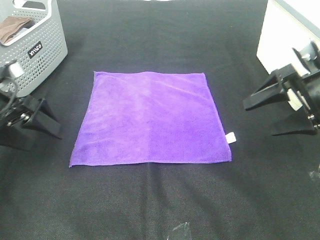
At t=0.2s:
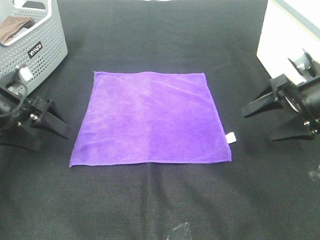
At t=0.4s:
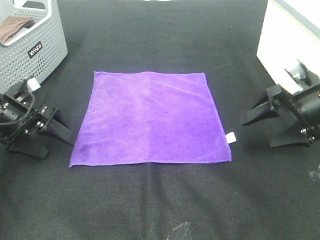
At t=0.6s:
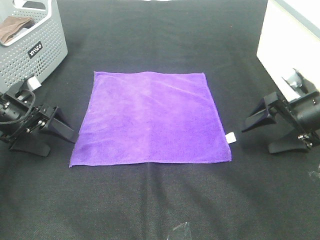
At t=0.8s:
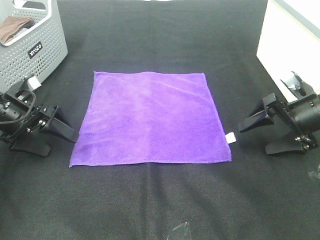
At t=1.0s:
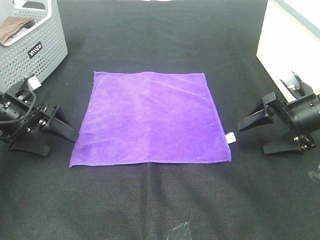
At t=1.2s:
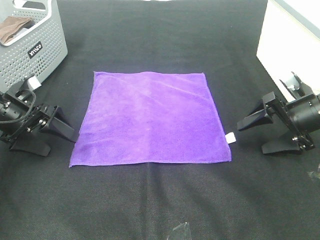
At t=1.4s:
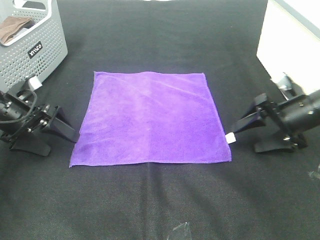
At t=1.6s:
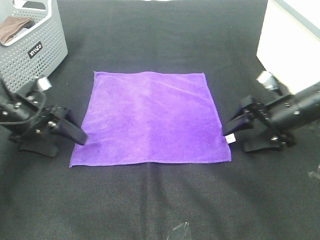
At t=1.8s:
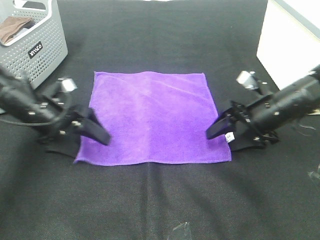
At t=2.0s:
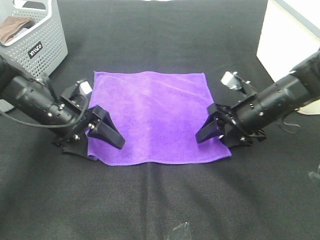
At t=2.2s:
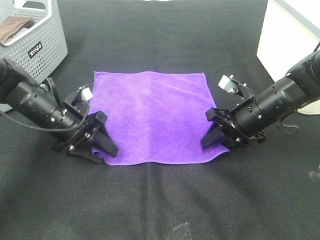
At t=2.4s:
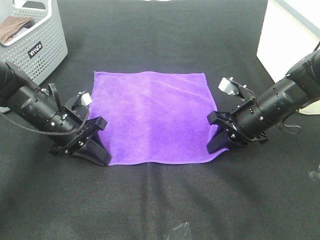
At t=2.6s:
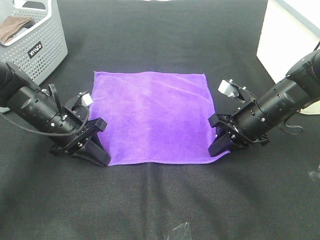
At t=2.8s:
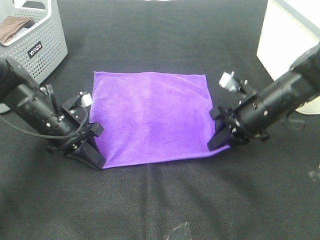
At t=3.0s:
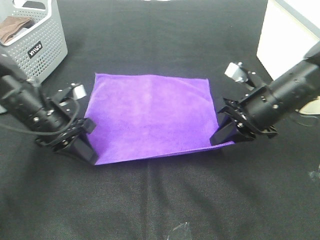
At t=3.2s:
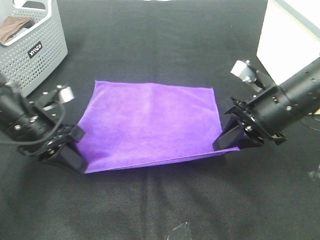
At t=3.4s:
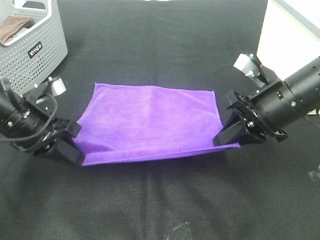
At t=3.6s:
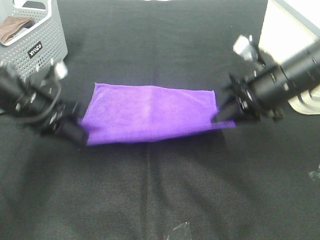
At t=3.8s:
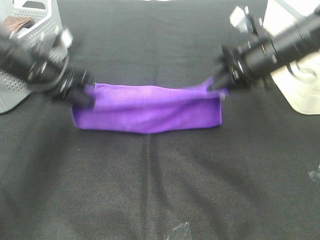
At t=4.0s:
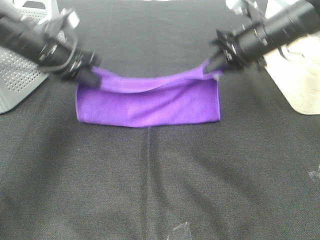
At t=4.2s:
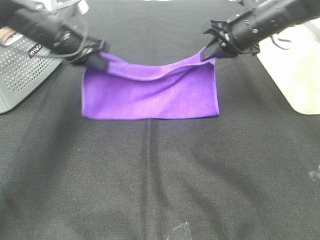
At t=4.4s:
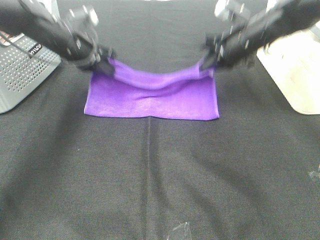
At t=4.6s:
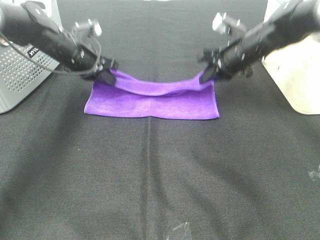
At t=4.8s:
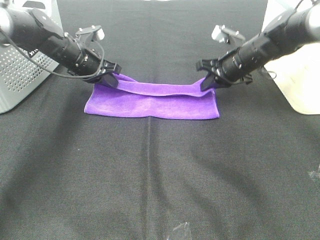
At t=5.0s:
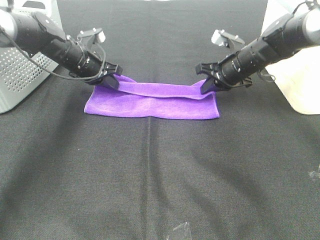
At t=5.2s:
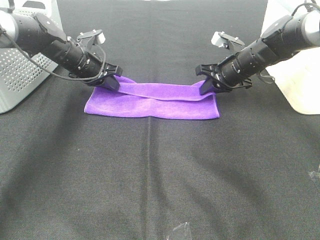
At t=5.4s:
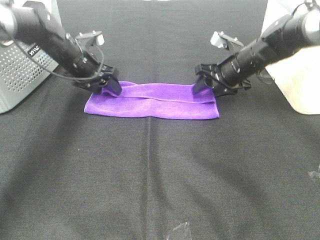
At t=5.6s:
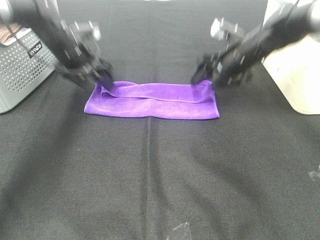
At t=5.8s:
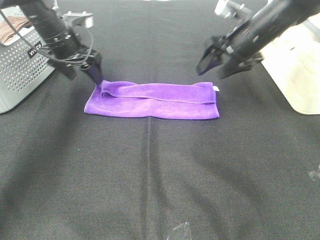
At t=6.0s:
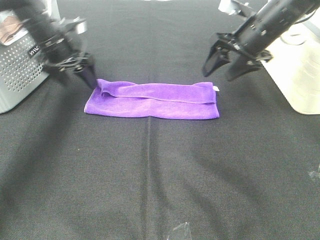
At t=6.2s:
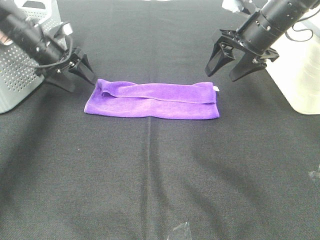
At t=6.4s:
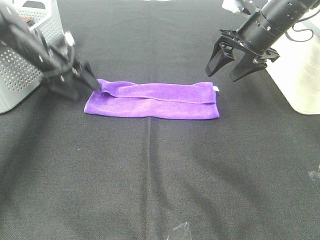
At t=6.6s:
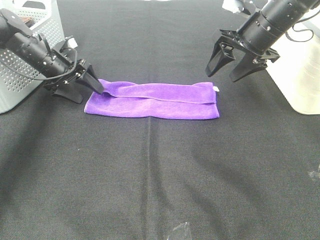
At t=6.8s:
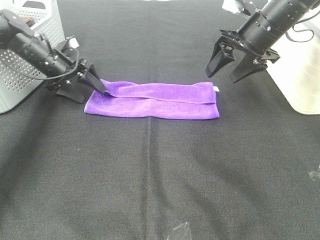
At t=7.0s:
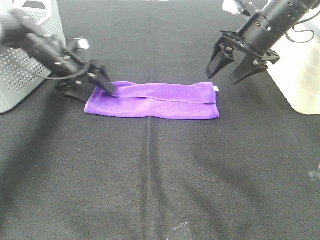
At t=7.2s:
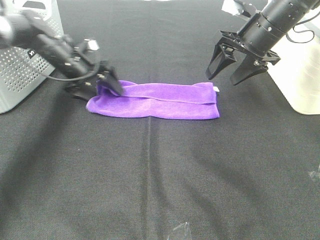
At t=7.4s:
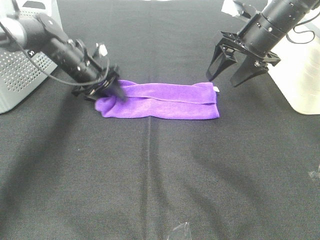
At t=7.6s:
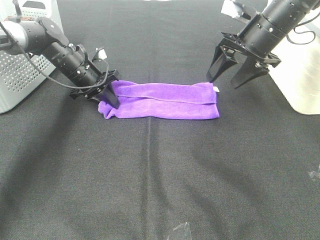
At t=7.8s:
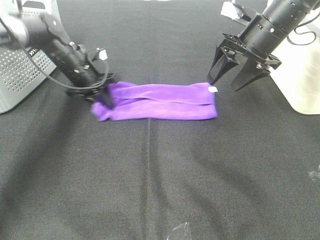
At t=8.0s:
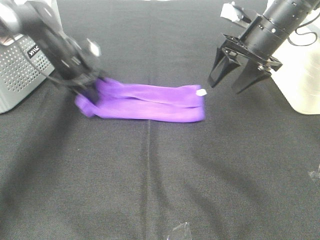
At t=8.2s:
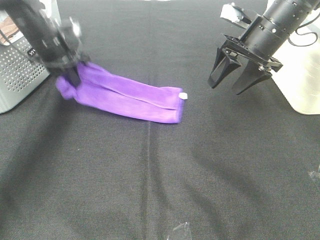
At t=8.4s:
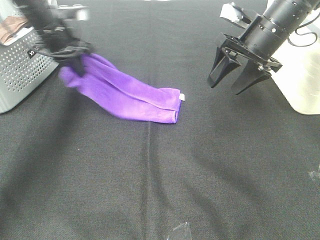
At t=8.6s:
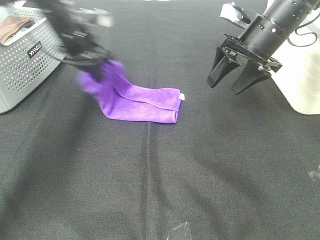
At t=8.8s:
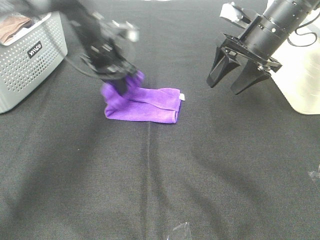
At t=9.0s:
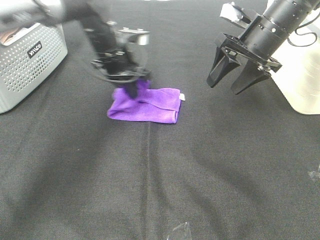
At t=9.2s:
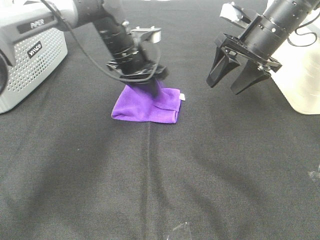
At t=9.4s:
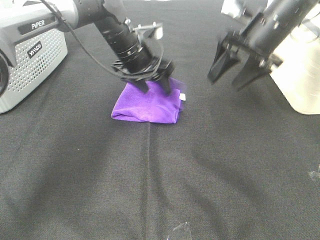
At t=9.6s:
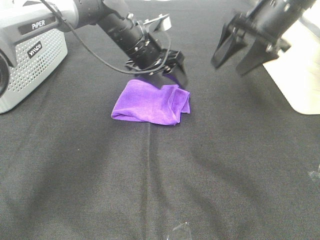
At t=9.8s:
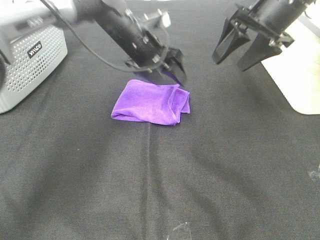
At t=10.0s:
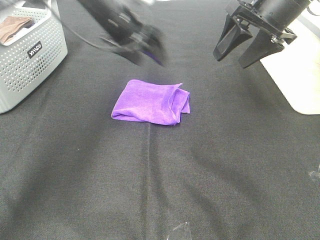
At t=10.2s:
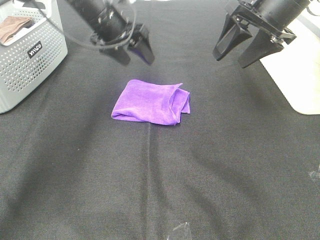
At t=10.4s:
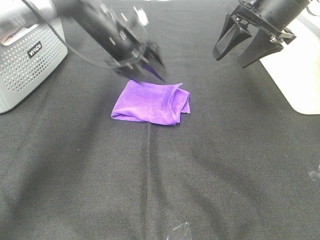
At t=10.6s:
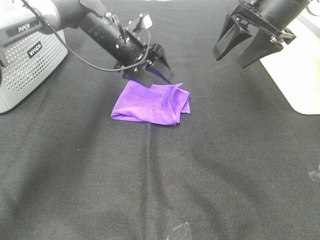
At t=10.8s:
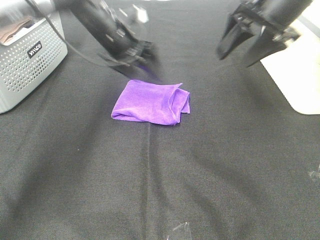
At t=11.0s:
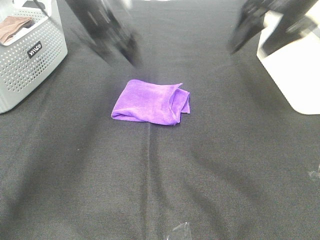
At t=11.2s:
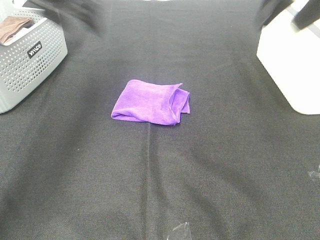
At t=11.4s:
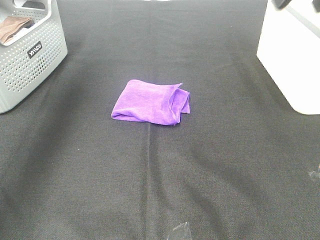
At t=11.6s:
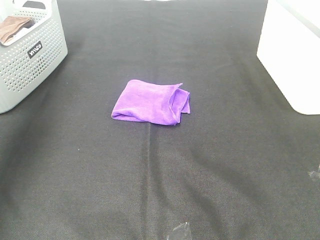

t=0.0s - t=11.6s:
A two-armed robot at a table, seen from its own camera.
Task of the whole recording: Fold towels.
Step, t=0.0s - t=2.4s: Left hand: grab the bottom left corner of purple towel.
Step, t=0.0s - t=2.4s: Right hand: grab the bottom right corner of purple towel.
Step, t=2.6s - t=5.0s: Left hand: fold the purple towel up.
Step, t=2.6s - t=5.0s: Right hand: fold the purple towel up.
Step, t=5.2s - t=9.0s: Left hand: fold the purple towel from left to right.
t=0.0s - t=1.4s: The left gripper ends up approximately 5 cm from where it was, while the right gripper moves downward, roughly 5 cm.
t=1.4s - t=2.8s: The right gripper is displaced to the left by about 10 cm, and closes its fingers; the left gripper travels to the right by some 10 cm, and closes up.
t=2.8s - t=4.4s: The left gripper travels forward and upward by roughly 15 cm. The right gripper heads forward, covering roughly 15 cm.
t=4.4s - t=5.8s: The right gripper opens up; the left gripper opens.
t=5.8s - t=7.2s: The left gripper heads downward, covering about 10 cm.
t=7.2s - t=8.8s: The left gripper shifts roughly 10 cm to the right and upward, and closes its fingers.
t=8.8s - t=10.2s: The left gripper opens; the right gripper heads upward, covering approximately 5 cm.
t=10.2s - t=11.6s: The right gripper moves upward and backward, roughly 15 cm. Meanwhile the left gripper heads to the left, backward and upward, covering roughly 35 cm.

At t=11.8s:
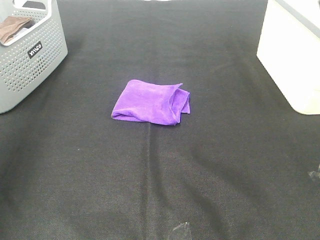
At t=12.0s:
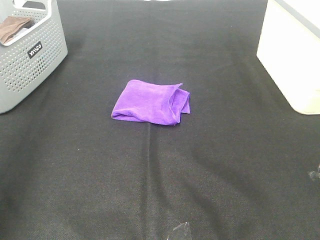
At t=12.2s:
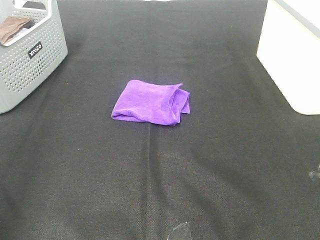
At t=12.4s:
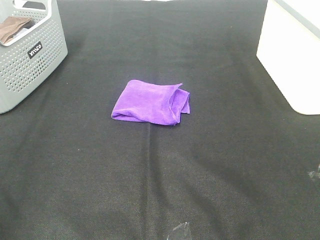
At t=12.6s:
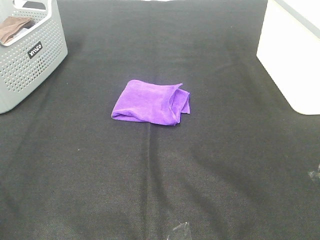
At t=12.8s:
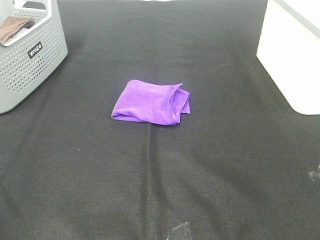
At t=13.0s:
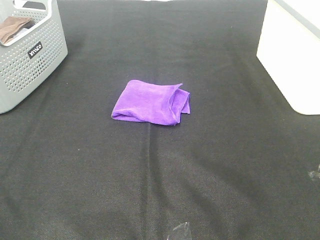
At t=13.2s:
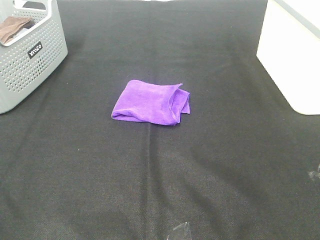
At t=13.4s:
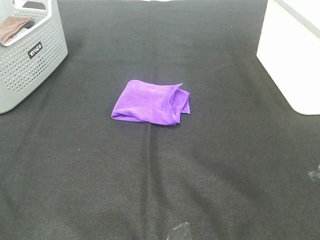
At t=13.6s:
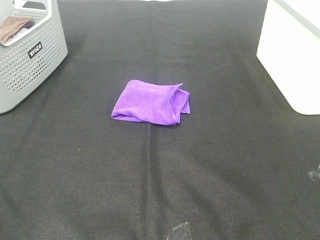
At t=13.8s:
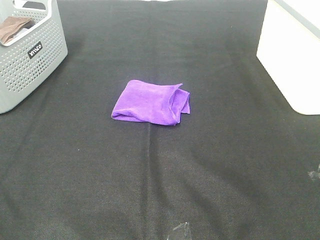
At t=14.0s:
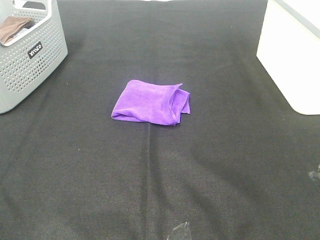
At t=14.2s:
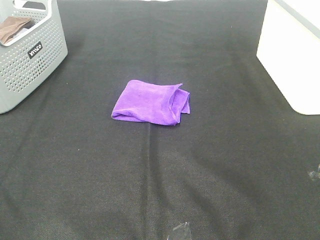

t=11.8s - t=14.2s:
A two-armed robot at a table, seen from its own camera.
Task of the whole recording: Fold towels.
t=11.8s - t=13.0s: The left gripper moves backward and downward, roughly 25 cm.

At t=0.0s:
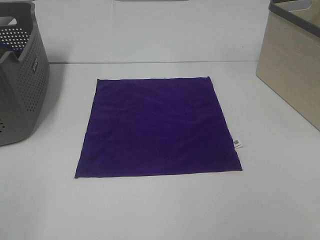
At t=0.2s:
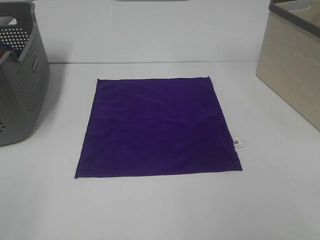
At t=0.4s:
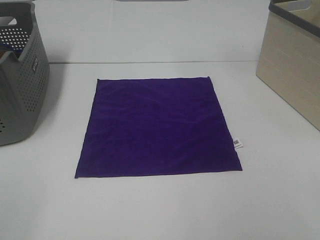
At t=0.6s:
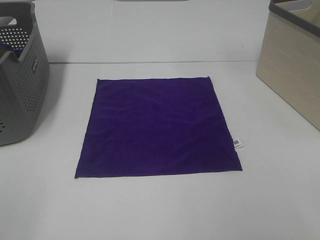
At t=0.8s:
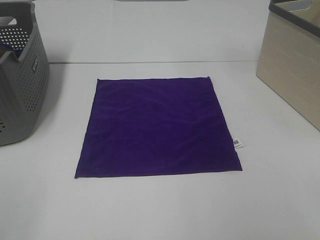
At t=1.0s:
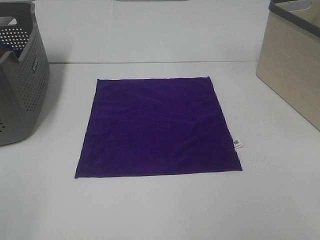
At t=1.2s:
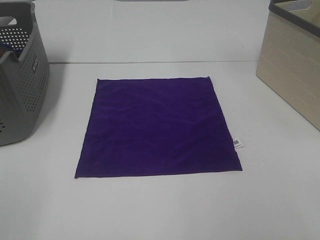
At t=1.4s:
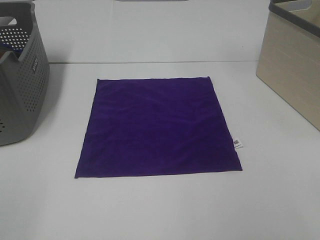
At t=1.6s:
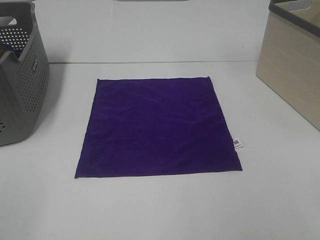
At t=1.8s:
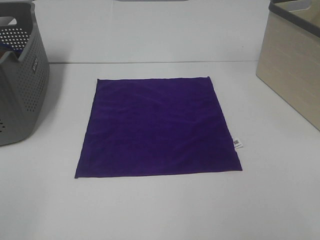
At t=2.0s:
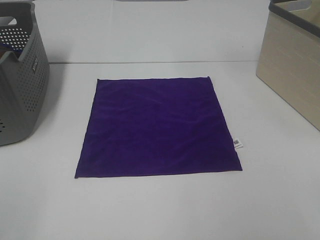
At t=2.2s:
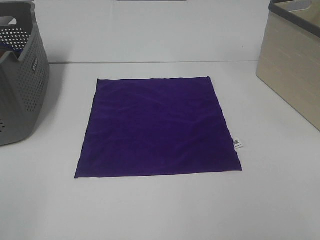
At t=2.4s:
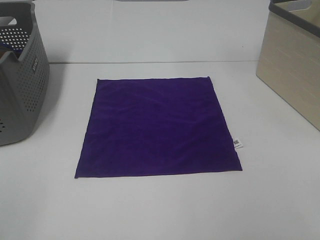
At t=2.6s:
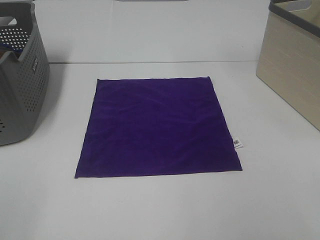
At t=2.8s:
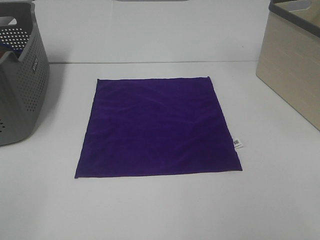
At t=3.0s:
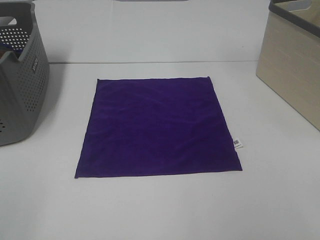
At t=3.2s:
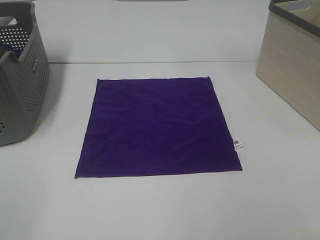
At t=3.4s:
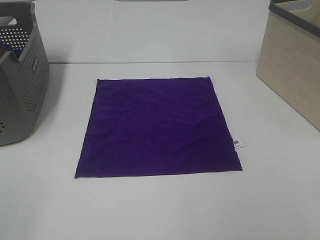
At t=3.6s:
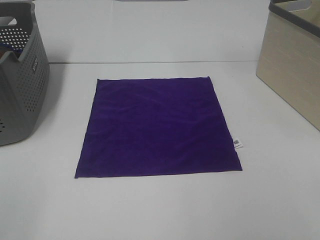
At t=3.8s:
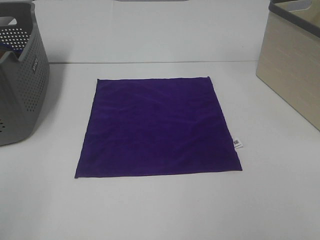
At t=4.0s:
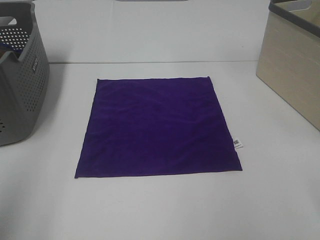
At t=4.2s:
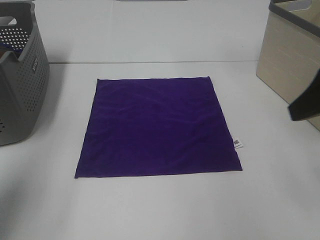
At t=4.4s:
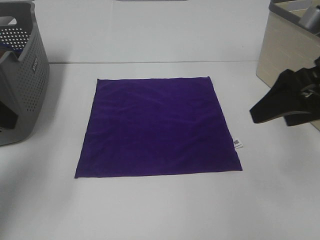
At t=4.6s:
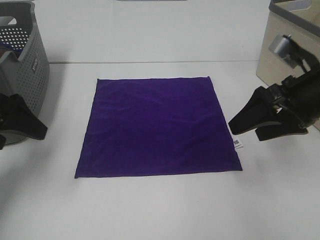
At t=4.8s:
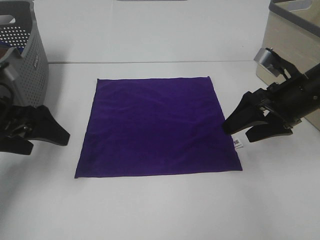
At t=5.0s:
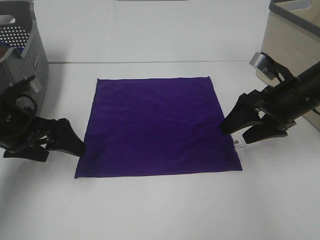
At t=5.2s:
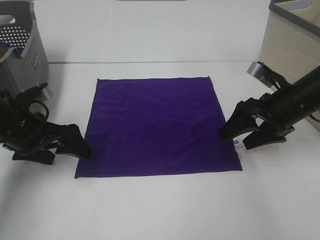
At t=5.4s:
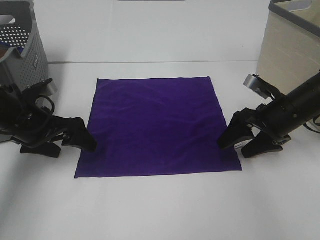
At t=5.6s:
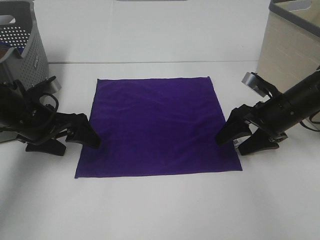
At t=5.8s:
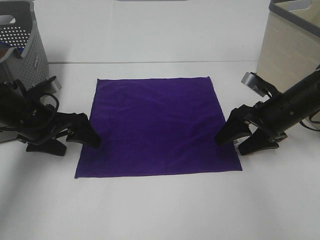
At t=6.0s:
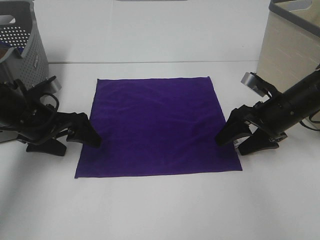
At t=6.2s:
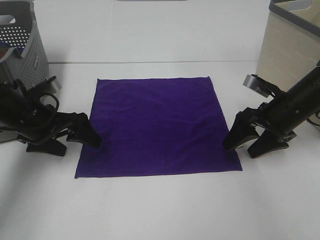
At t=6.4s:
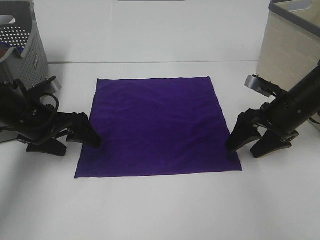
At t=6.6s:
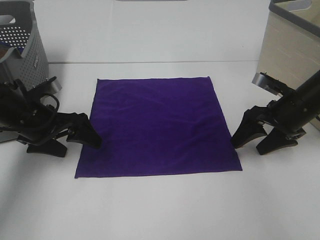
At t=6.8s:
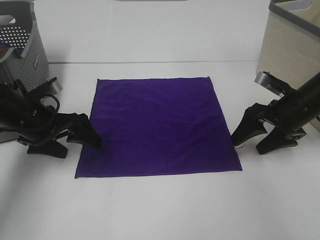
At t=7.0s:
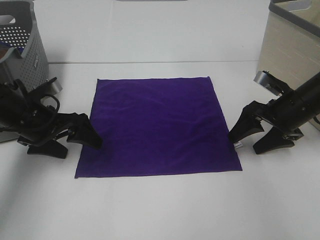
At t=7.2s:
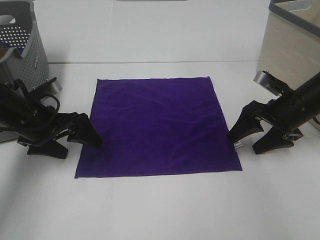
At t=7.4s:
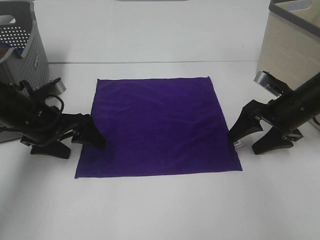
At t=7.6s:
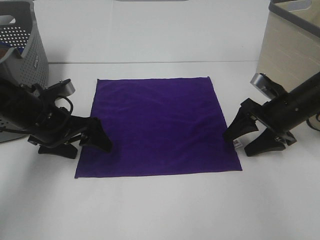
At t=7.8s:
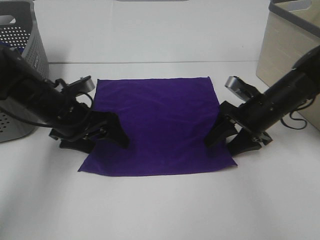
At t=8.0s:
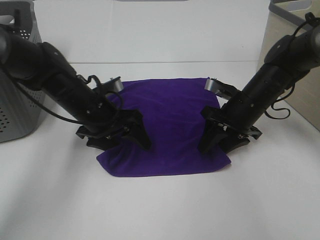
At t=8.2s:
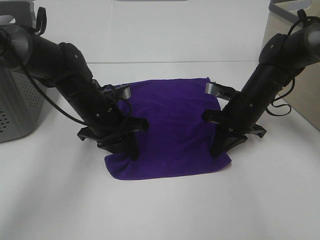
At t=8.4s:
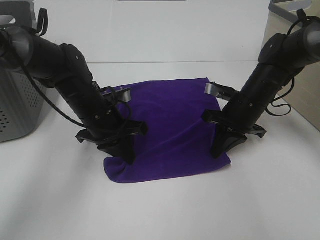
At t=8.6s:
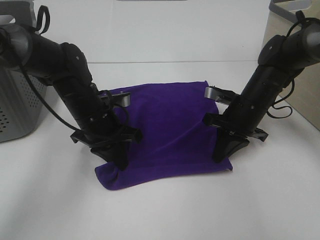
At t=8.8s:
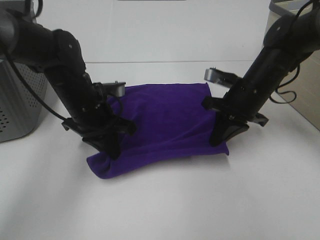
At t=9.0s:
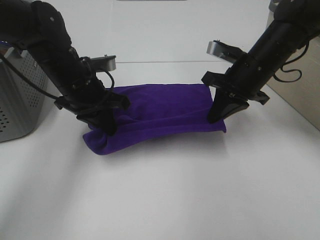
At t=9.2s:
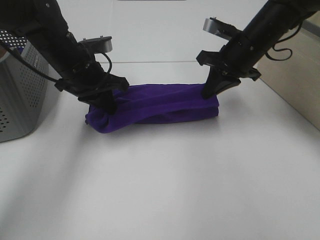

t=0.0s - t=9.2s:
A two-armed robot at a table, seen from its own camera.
Task of the whole recording: Fold towels.
Step, t=0.0s - t=8.6s: Left hand: grab the bottom left corner of purple towel.
Step, t=0.0s - t=8.6s: Right hand: grab the bottom right corner of purple towel.
t=0.0s - t=3.0s: Both grippers stay about where they are.
t=3.0s - t=4.6s: Both grippers move forward, about 25 cm.
t=4.6s - t=6.2s: The right gripper goes roughly 10 cm downward and forward; the left gripper moves downward, forward and to the right, about 15 cm.
t=6.2s - t=7.6s: The grippers stay close to where they were, moving slightly.
t=7.6s - t=9.2s: The left gripper is displaced forward, upward and to the right by roughly 10 cm, and closes up. The right gripper shifts approximately 15 cm upward, to the left and forward, and closes its fingers.
